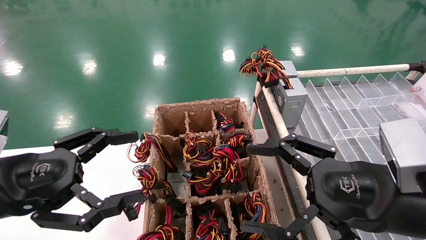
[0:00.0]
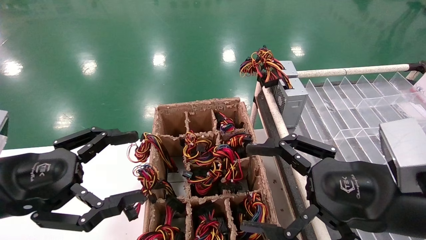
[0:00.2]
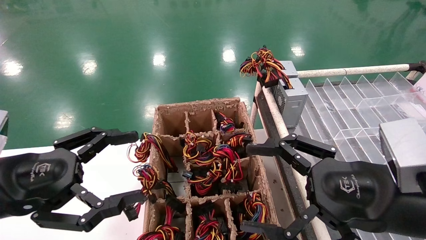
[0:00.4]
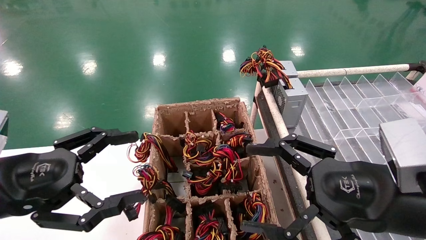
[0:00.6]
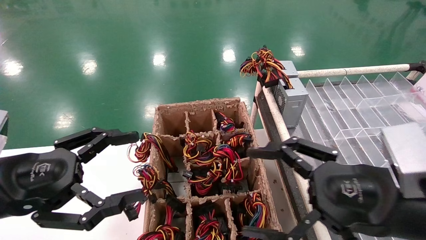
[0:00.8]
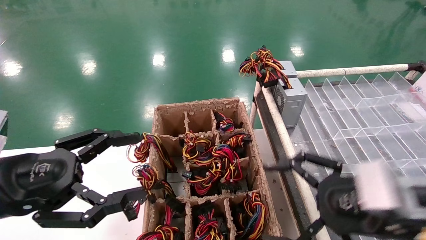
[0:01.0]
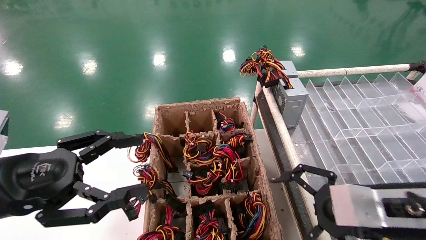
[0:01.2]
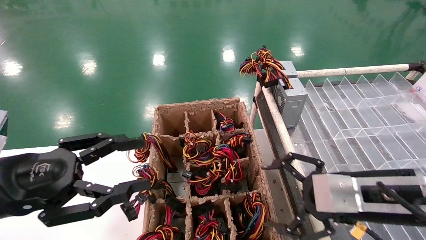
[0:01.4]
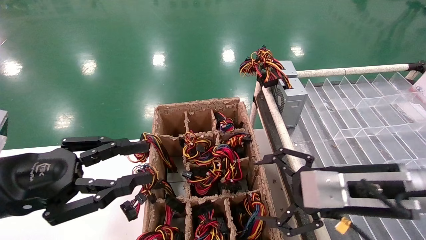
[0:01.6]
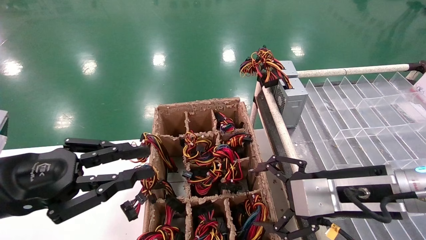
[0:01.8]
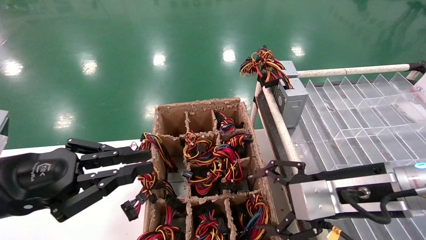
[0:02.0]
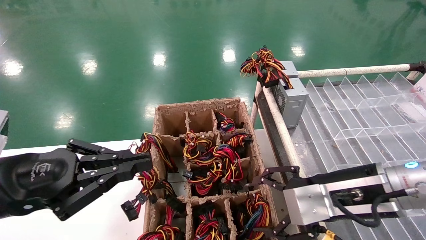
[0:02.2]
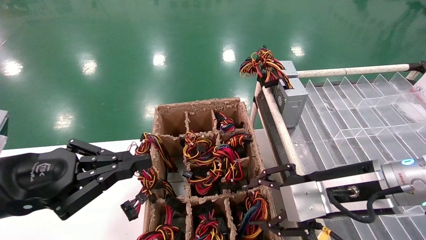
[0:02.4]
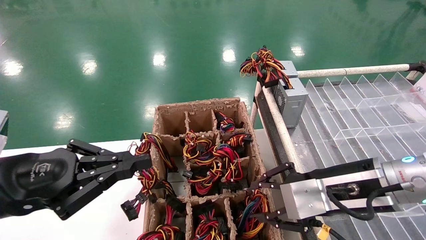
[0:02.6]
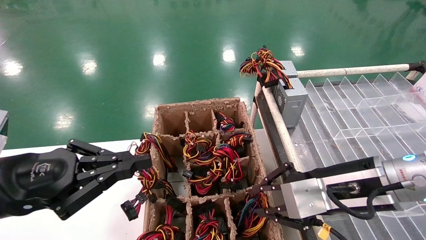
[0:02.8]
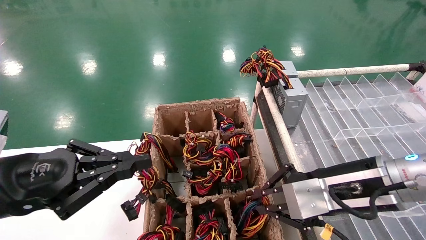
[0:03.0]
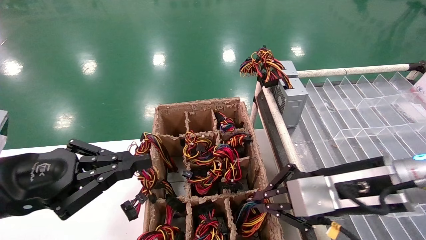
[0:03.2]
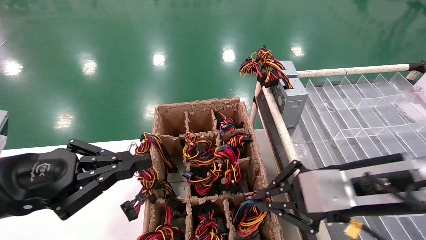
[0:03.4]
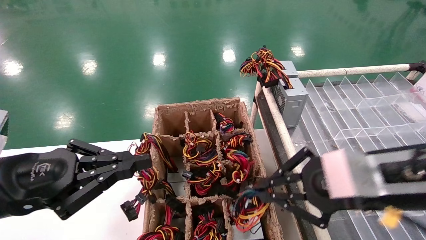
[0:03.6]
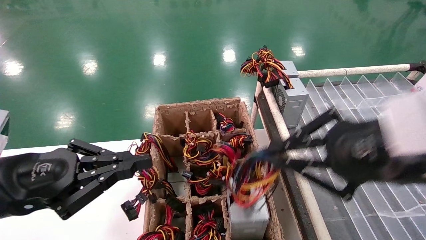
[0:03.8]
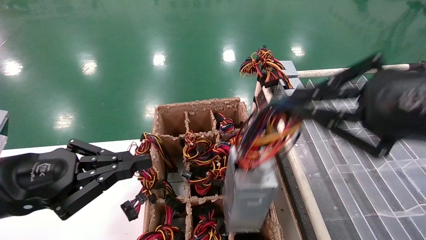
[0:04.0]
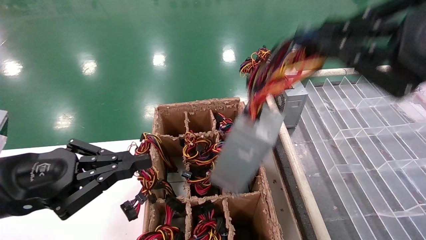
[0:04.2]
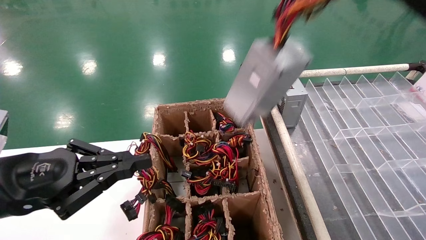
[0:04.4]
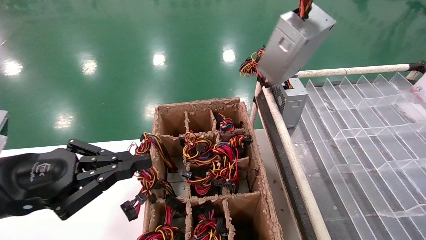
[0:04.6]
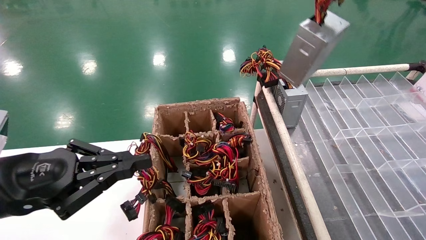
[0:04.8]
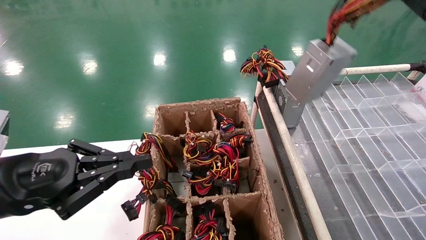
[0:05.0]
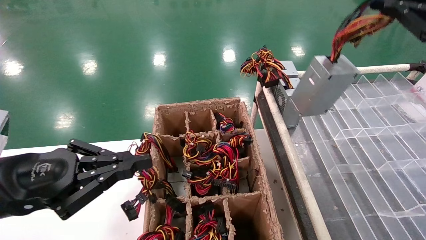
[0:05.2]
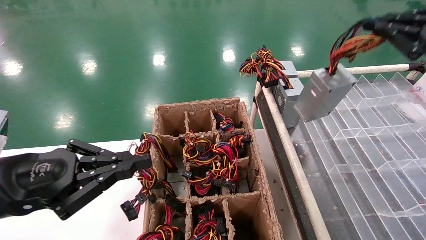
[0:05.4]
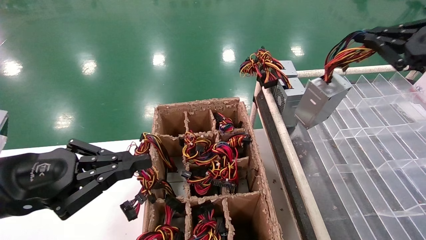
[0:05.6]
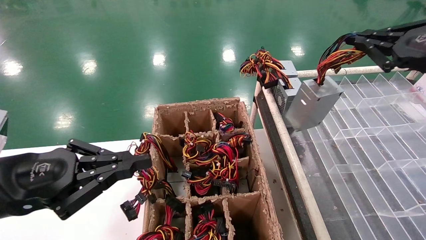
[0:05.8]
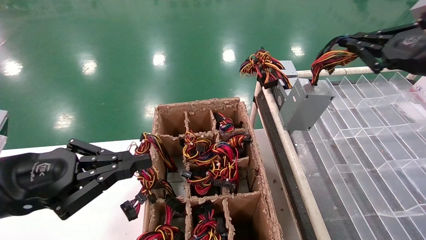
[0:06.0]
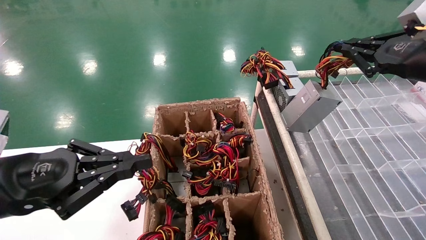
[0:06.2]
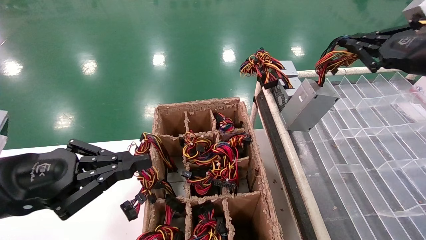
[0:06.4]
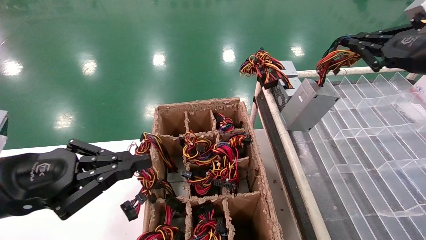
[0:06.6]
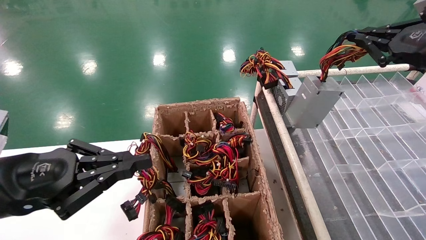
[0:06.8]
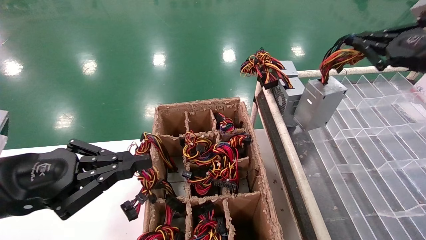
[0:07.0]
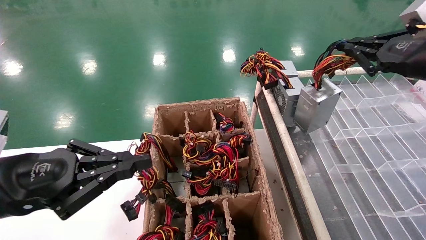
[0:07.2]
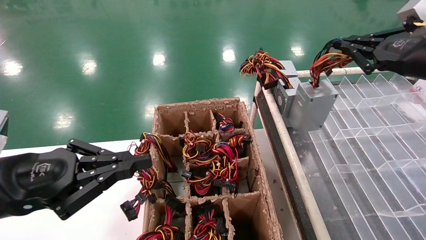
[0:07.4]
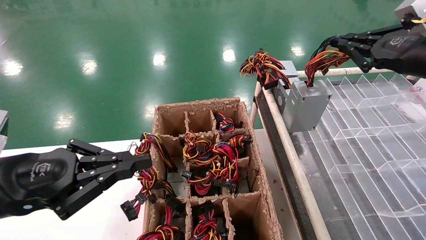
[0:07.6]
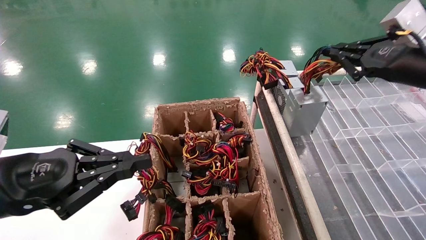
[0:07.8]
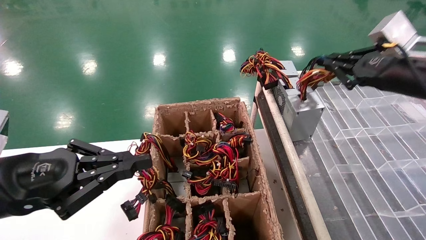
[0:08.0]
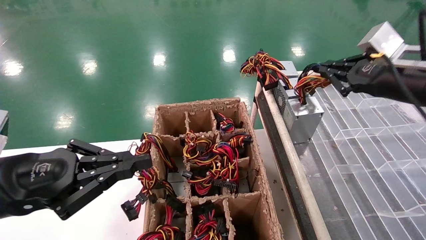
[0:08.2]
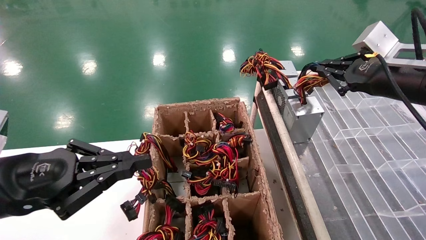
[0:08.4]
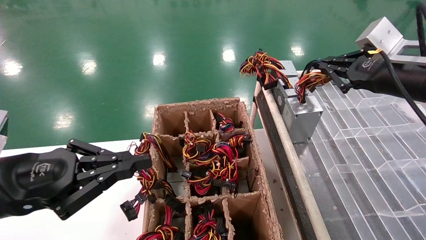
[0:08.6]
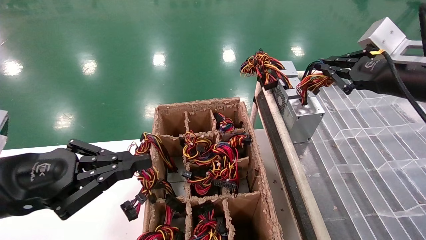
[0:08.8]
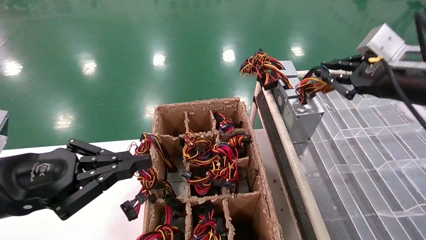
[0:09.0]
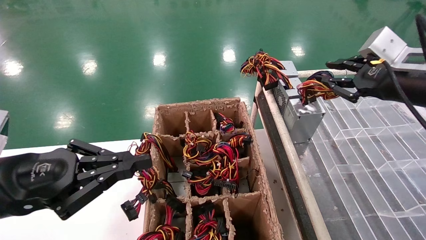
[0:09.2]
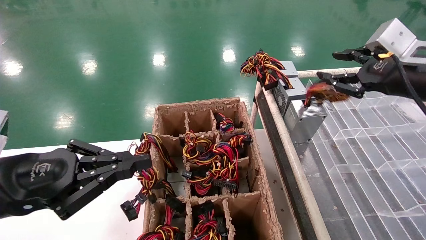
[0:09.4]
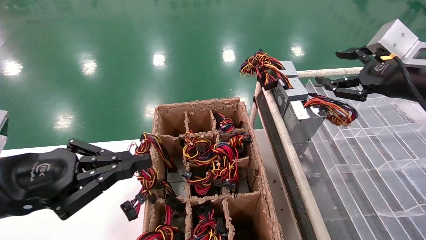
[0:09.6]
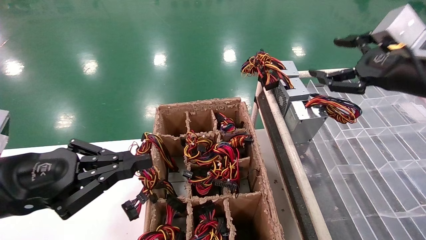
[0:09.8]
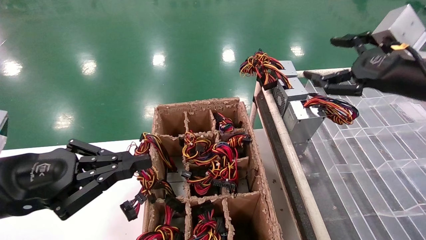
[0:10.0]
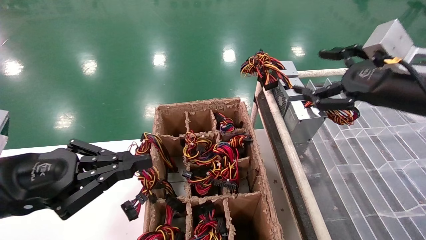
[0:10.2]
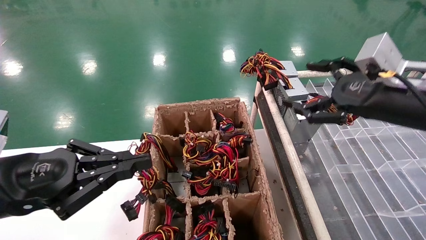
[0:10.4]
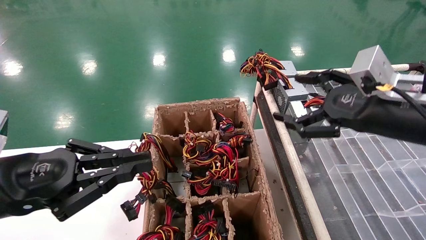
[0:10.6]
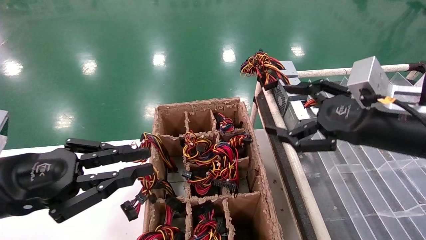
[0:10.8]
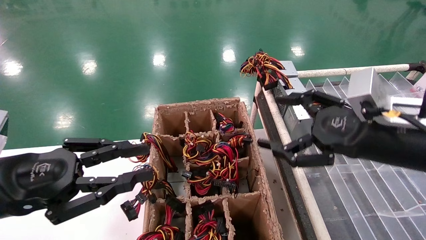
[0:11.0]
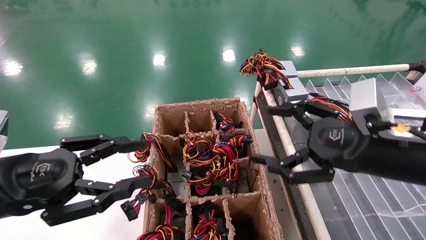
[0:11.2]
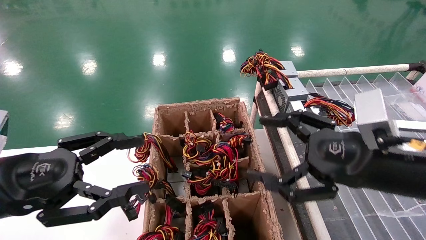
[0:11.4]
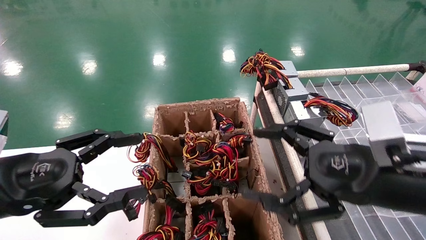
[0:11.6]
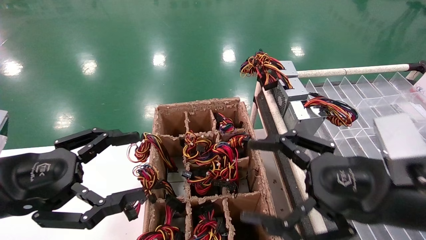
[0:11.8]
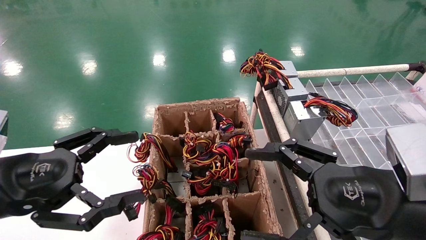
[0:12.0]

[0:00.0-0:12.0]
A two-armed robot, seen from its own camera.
Step, 0:01.2 to 0:03.2: Grab the main unit power supply from the containment box.
Step, 0:03.4 to 0:09.6: Place the main unit power supply in the designated area.
0:00.0 to 0:01.6: The left gripper closes its fingers, while the right gripper moves forward, approximately 5 cm.
0:01.6 to 0:03.0: The right gripper closes up; the left gripper closes its fingers.
0:03.0 to 0:04.4: The right gripper heads upward and to the right, covering some 20 cm.
0:04.4 to 0:06.0: The right gripper shifts about 15 cm forward, to the right and downward.
0:06.0 to 0:09.0: There are only small adjustments of the grippers.
0:09.0 to 0:10.4: The right gripper ends up roughly 5 cm from where it was, and opens up.
0:10.4 to 0:12.0: The left gripper opens its fingers, while the right gripper shifts some 15 cm backward, downward and to the left.

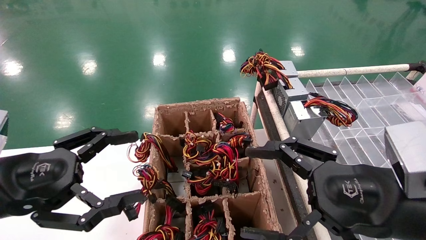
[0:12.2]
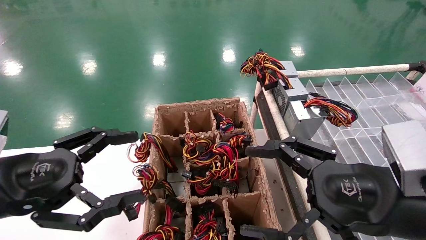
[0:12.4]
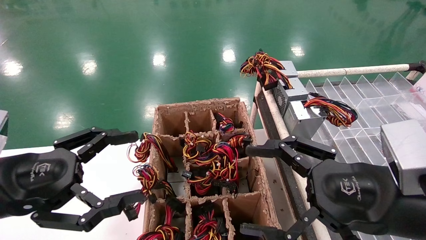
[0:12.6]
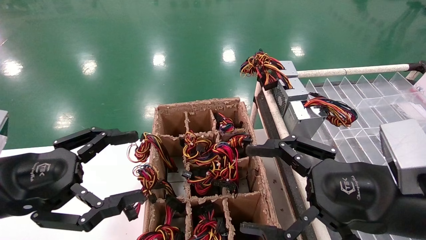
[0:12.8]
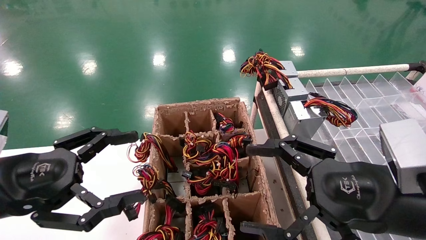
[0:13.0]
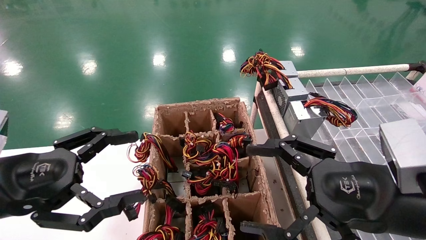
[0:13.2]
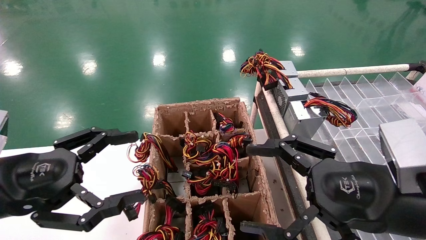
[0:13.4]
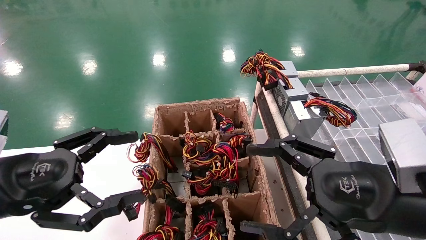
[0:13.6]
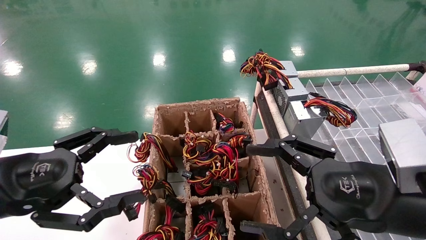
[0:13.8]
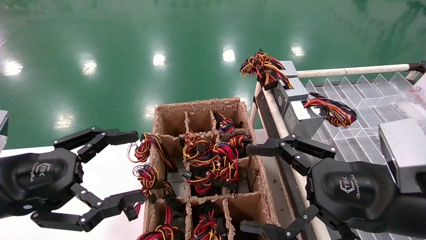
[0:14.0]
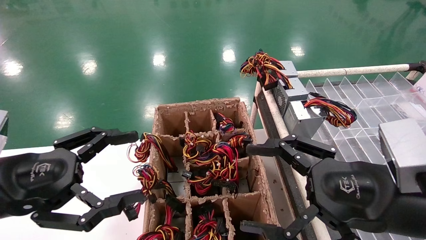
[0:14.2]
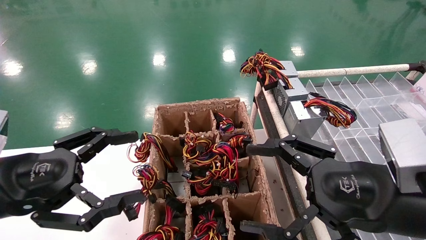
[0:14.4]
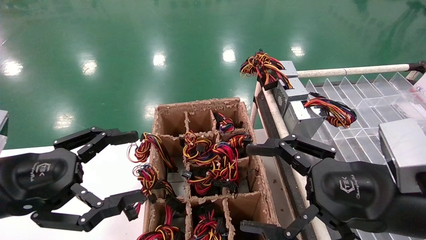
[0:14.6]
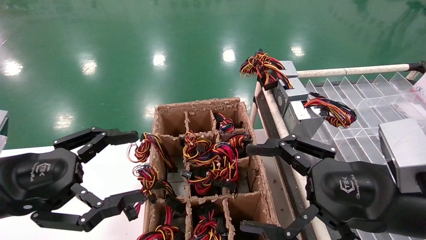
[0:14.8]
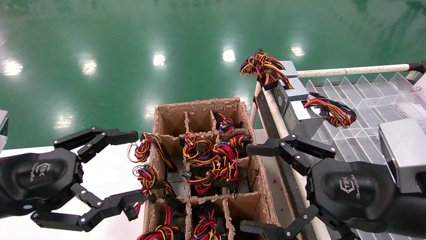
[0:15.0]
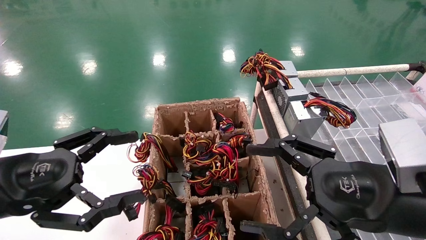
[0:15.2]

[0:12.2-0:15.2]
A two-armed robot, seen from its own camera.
0:12.2 to 0:15.2: Both grippers stay put.
